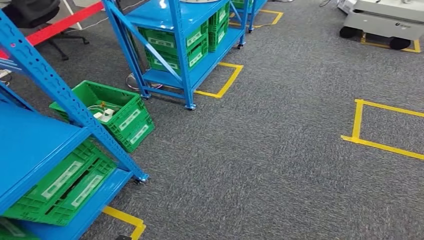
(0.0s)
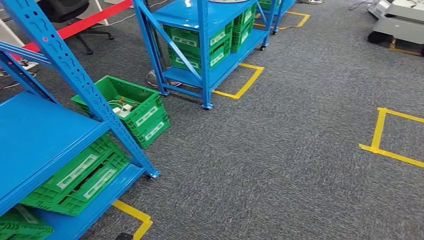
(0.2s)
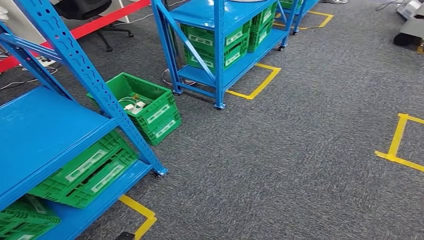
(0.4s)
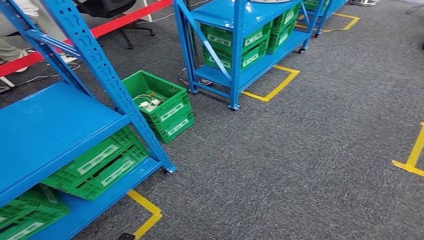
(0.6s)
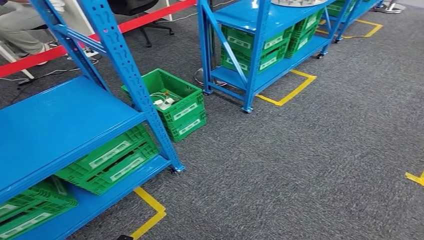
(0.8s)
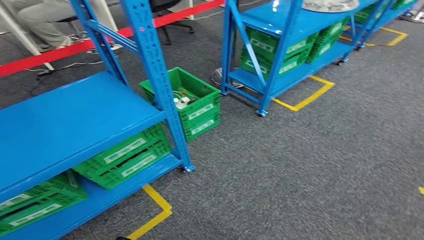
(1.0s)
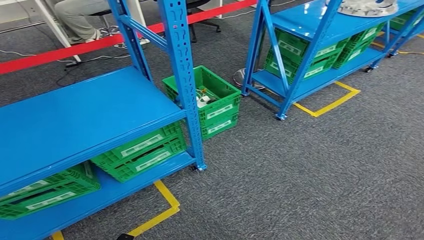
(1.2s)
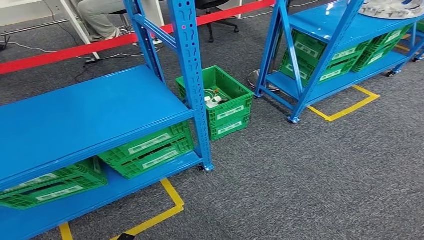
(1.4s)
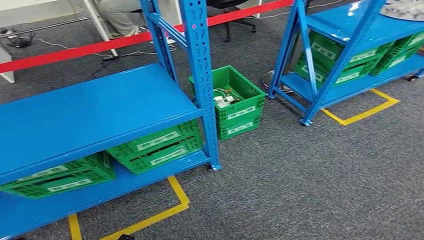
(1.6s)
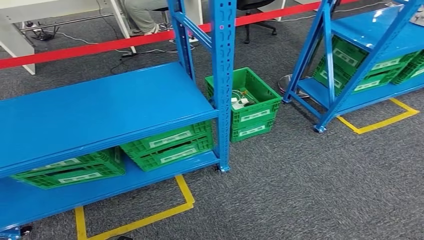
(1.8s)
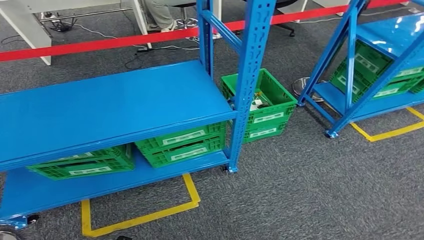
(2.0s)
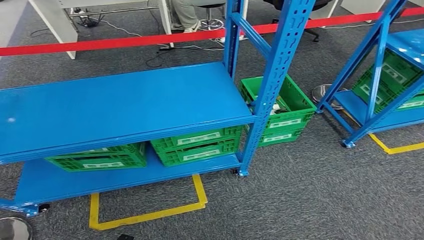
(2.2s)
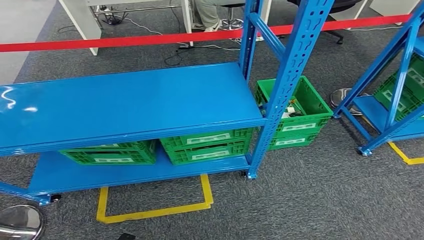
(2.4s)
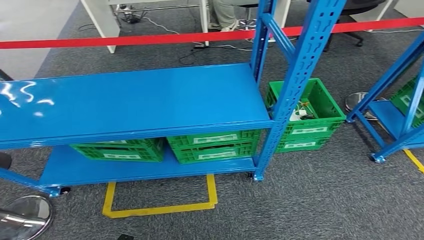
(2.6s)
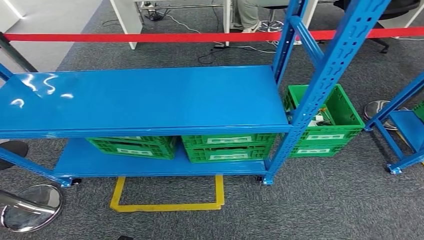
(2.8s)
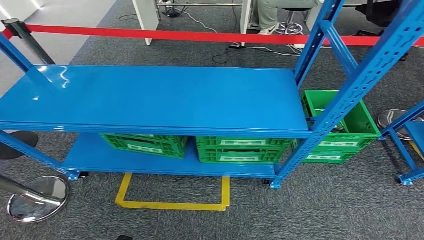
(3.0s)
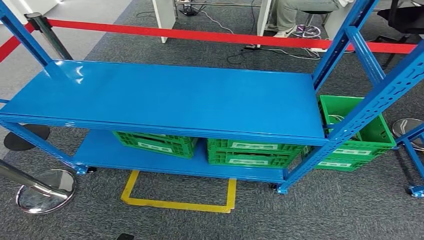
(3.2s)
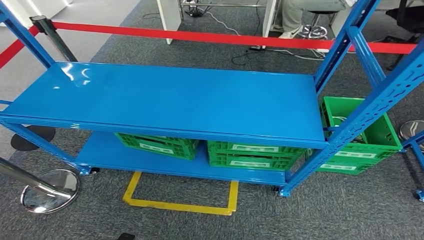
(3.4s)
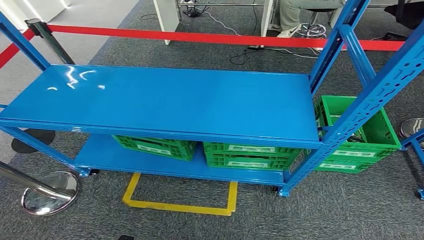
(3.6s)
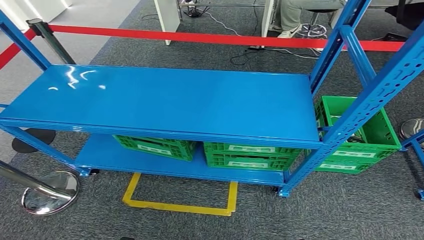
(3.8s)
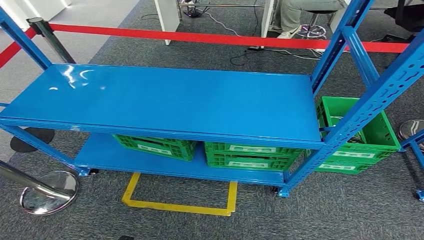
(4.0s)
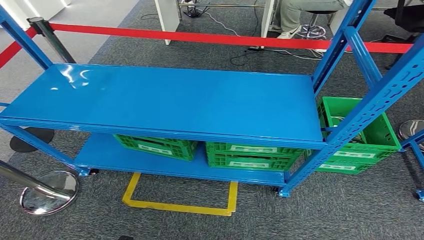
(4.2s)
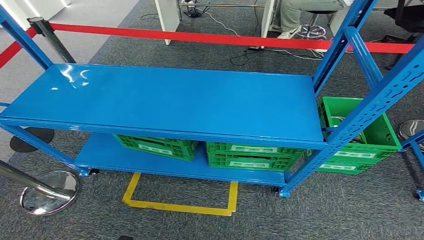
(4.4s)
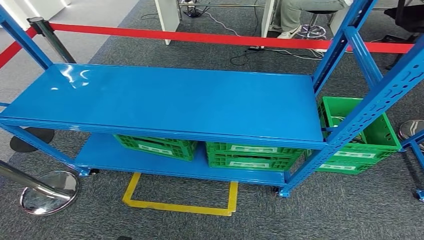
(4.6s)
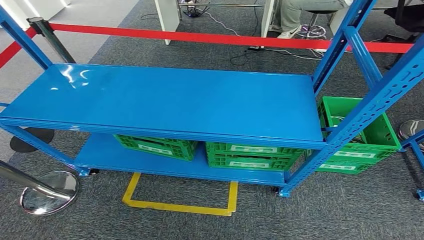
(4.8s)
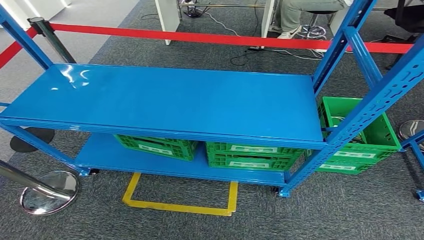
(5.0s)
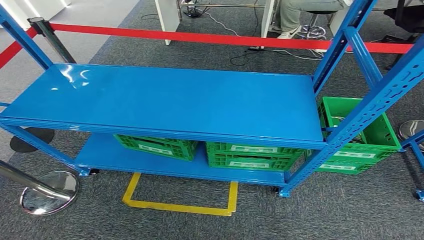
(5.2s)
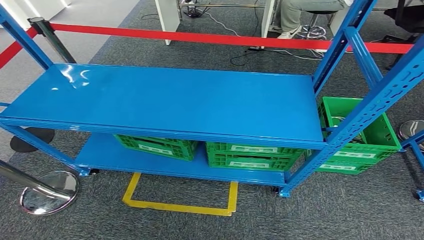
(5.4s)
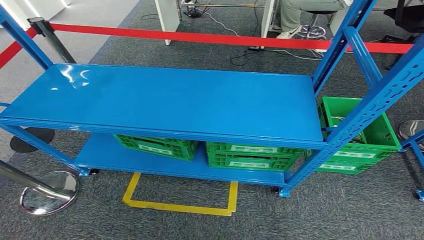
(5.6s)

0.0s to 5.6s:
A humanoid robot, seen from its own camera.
Step, 0.0s to 5.6s: Move to the initial position of the workbench.
